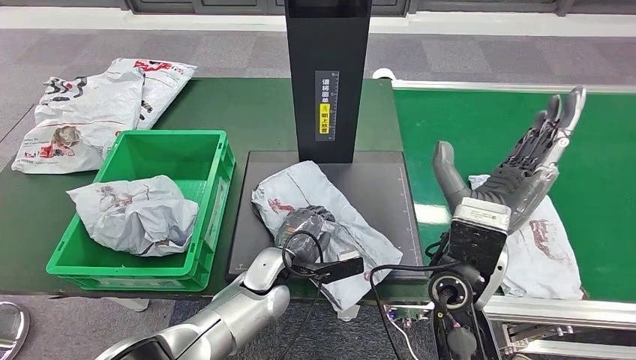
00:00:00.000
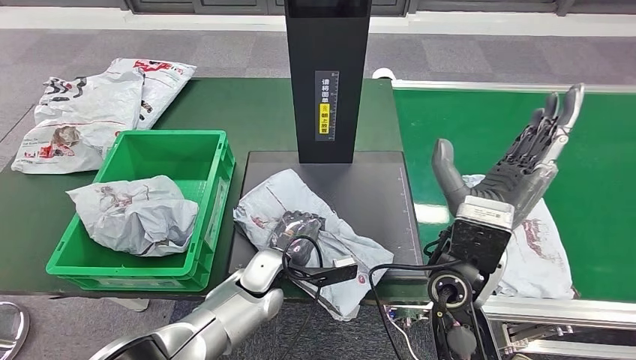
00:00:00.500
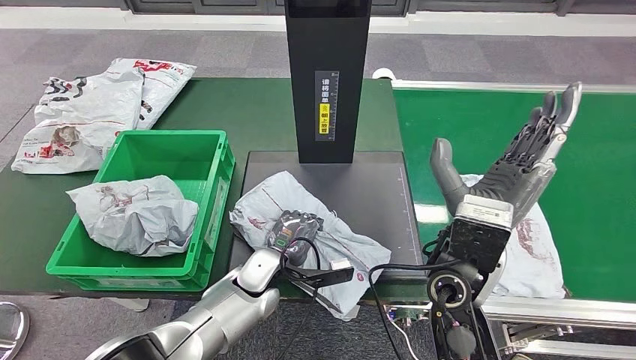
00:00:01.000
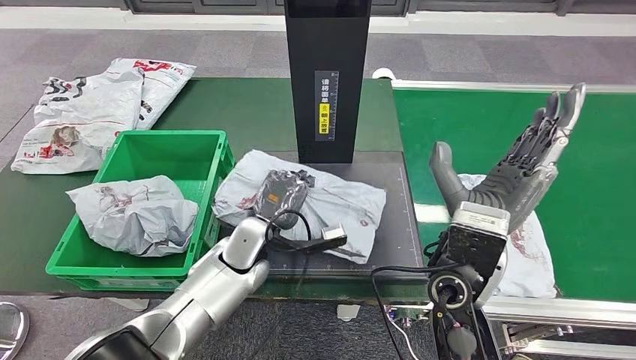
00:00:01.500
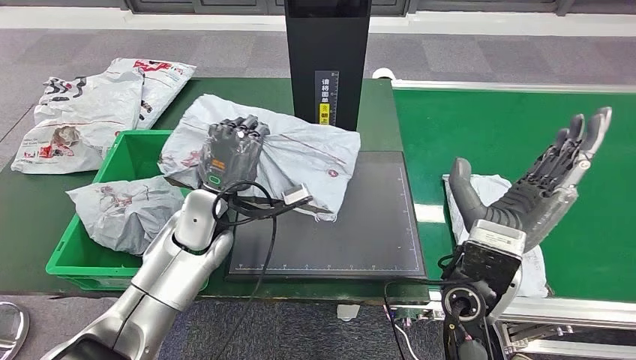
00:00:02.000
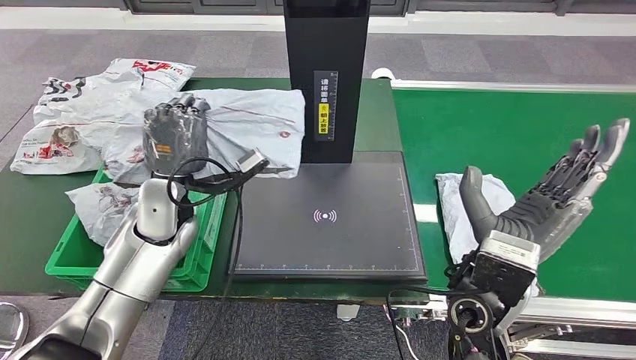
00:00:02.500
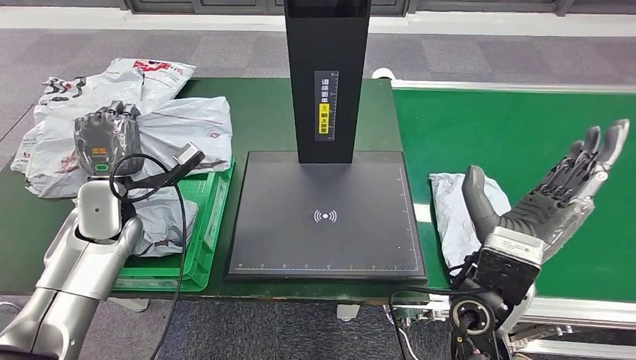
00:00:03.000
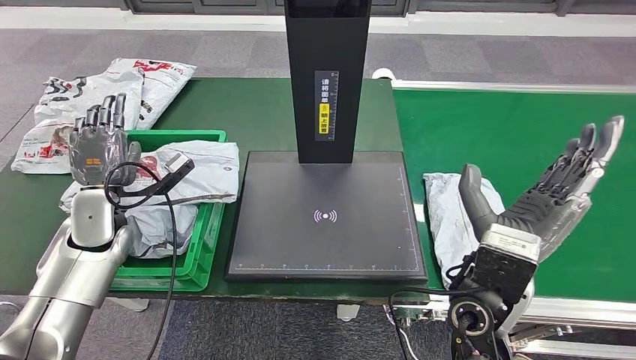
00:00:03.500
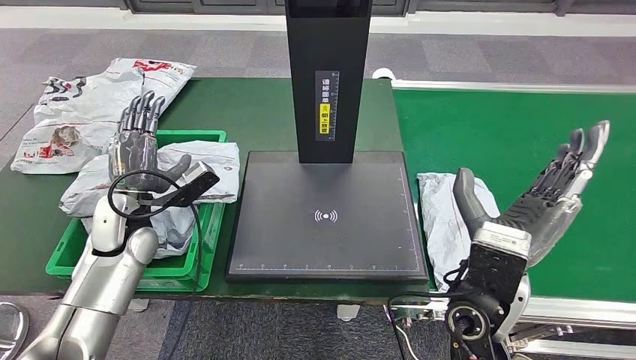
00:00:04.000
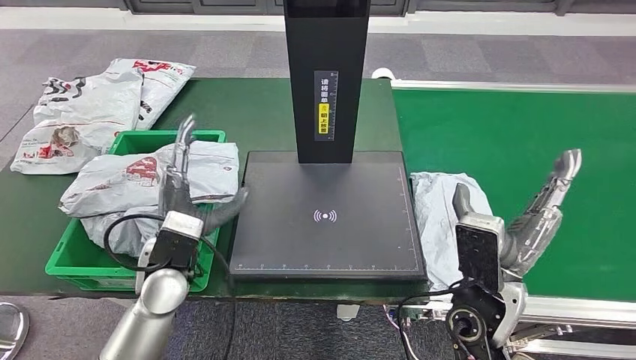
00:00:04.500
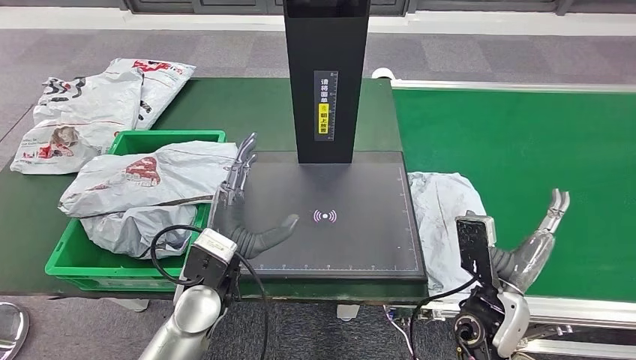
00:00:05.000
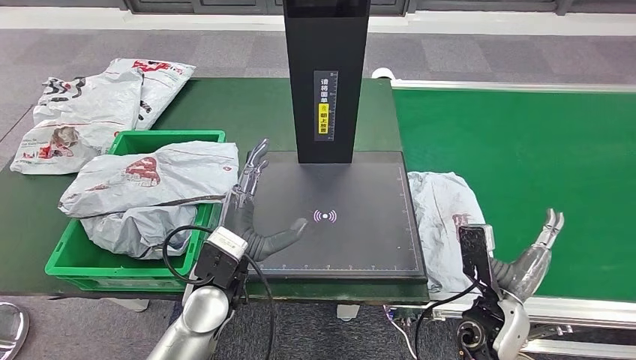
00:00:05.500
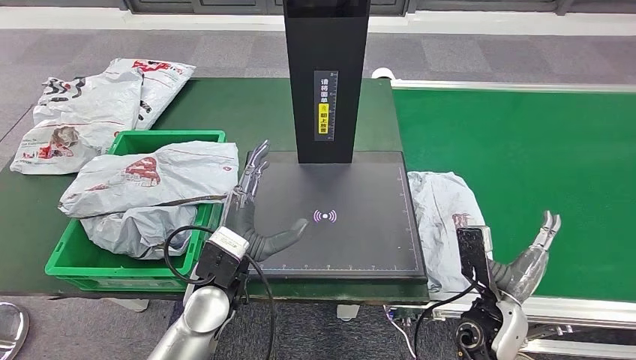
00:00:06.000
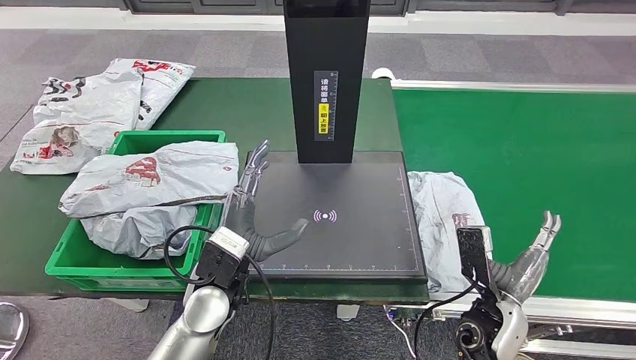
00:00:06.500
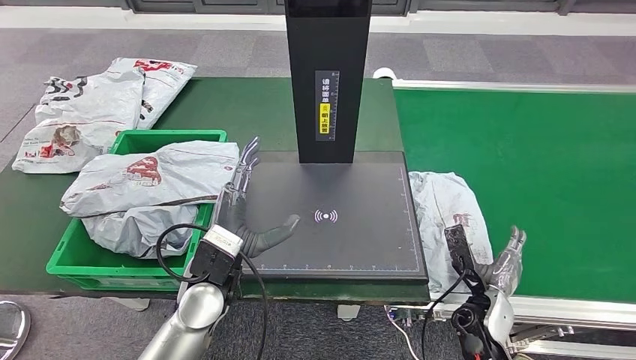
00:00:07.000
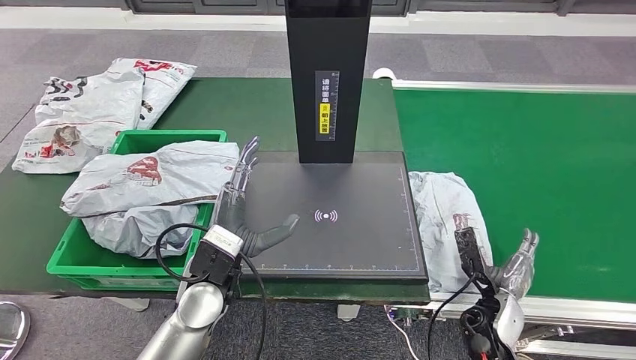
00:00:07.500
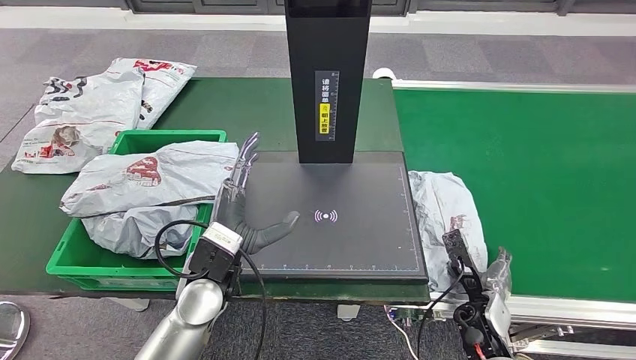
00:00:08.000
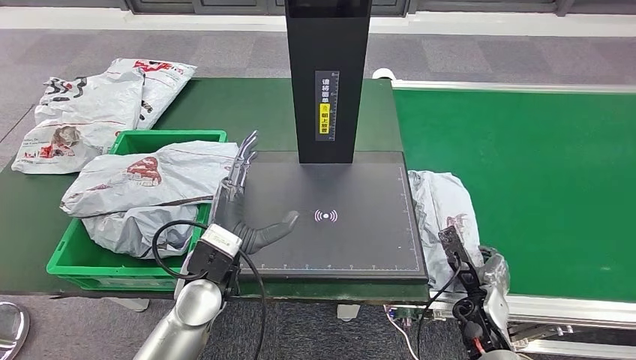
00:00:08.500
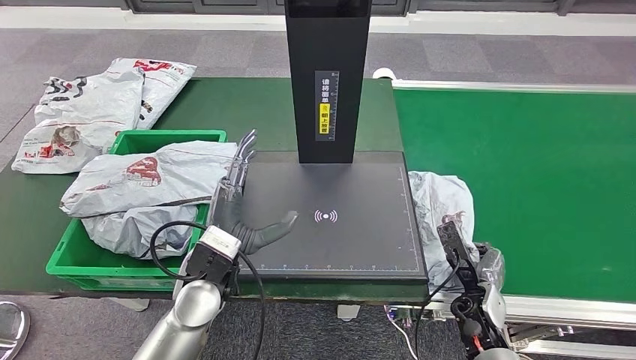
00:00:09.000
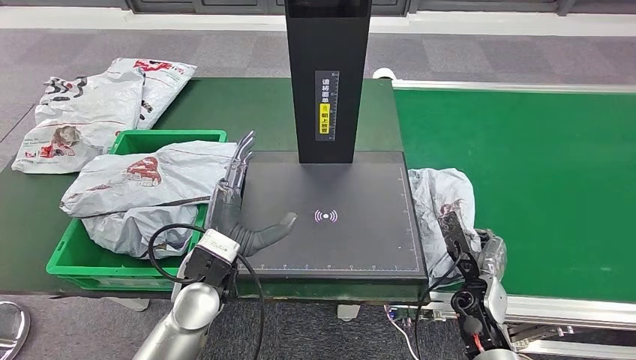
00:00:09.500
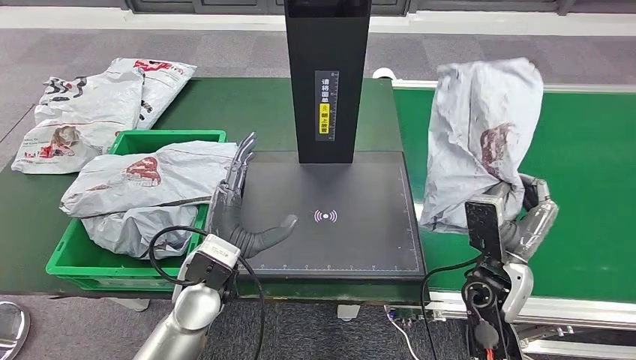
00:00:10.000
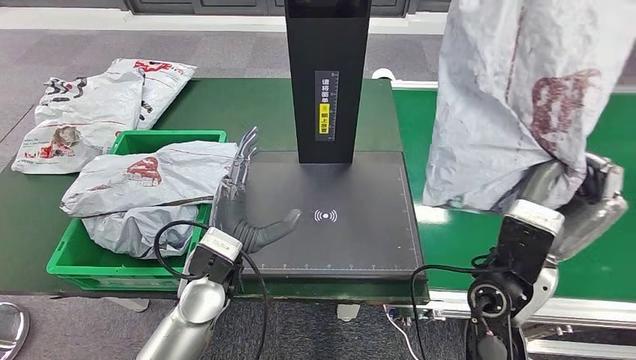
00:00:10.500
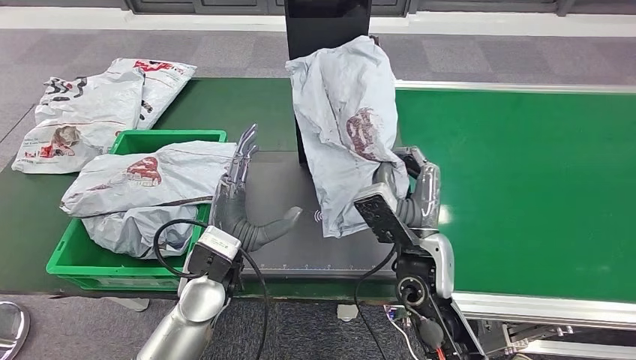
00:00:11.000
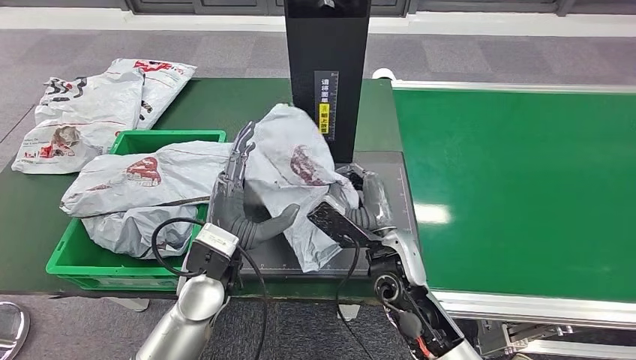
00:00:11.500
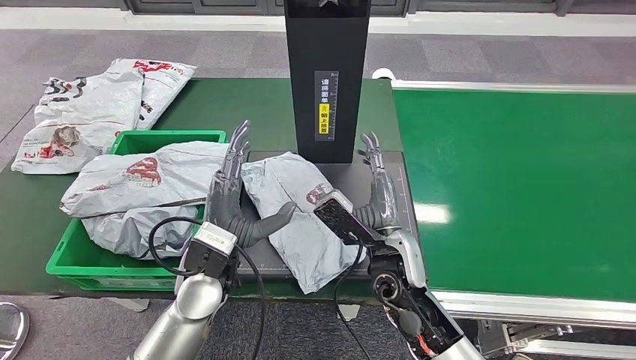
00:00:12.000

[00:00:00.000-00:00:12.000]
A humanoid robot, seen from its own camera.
Step, 00:00:00.000 to 00:00:02.000: Pick up the parcel from the inbound machine.
Step, 00:00:02.500 to 00:00:05.000: Place the parcel into the delivery box.
Step, 00:00:07.000 to 00:00:10.000: Pick up the parcel from the conveyor belt.
00:00:04.000 to 00:00:06.000: The right hand goes approximately 15 cm downward and to the right; the left hand goes approximately 20 cm to the right and backward.
00:00:06.000 to 00:00:08.000: The right hand goes about 10 cm downward.
00:00:08.000 to 00:00:10.000: The right hand is displaced upward by some 10 cm.

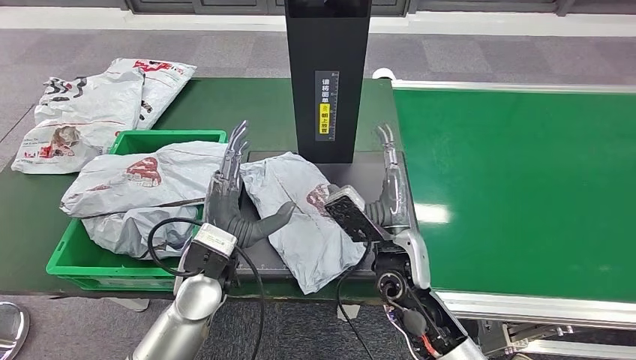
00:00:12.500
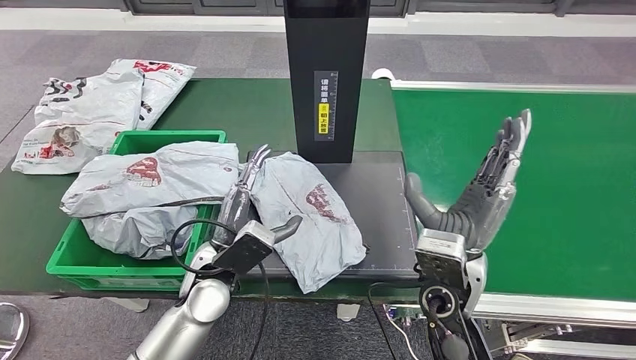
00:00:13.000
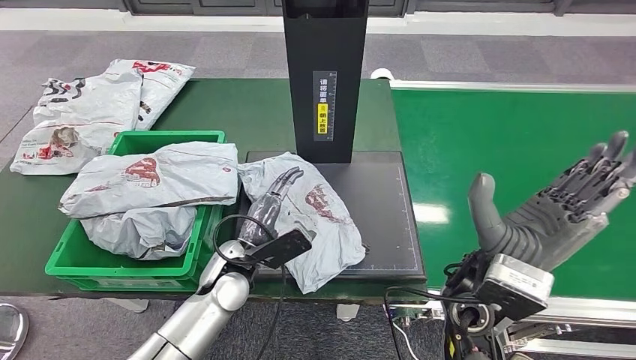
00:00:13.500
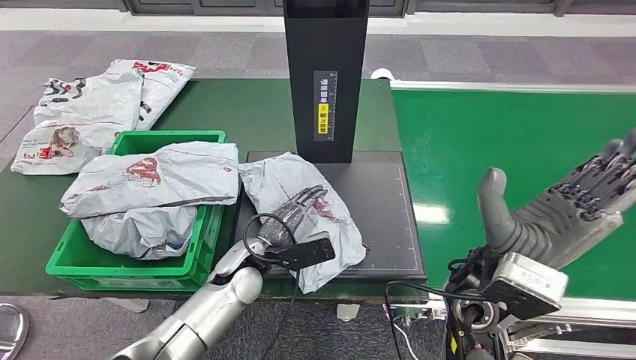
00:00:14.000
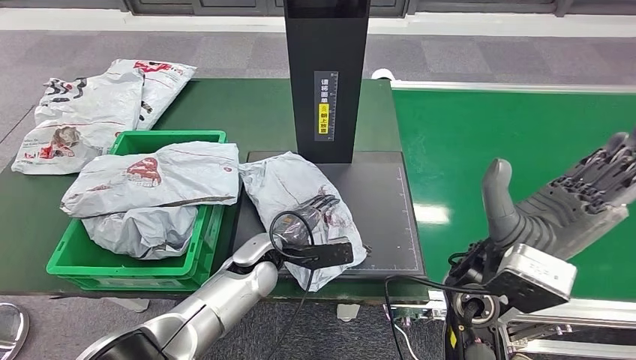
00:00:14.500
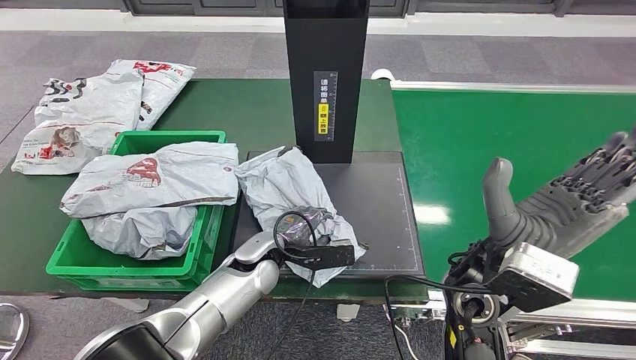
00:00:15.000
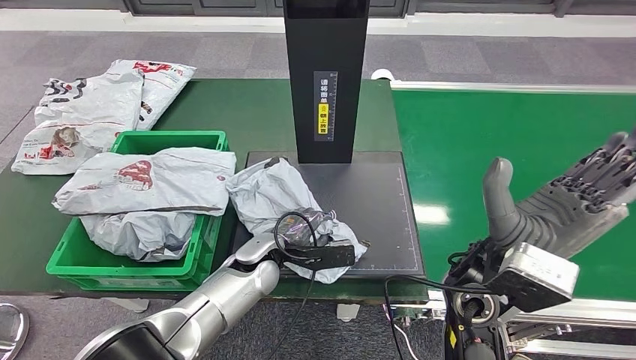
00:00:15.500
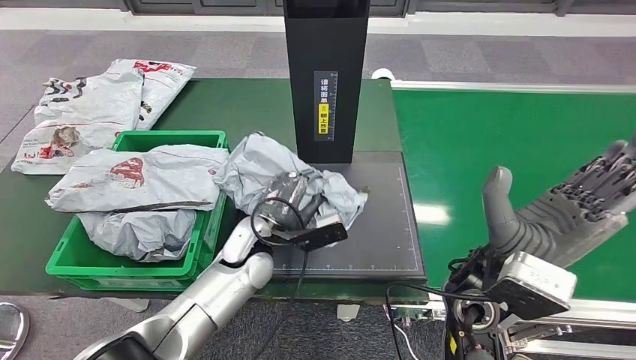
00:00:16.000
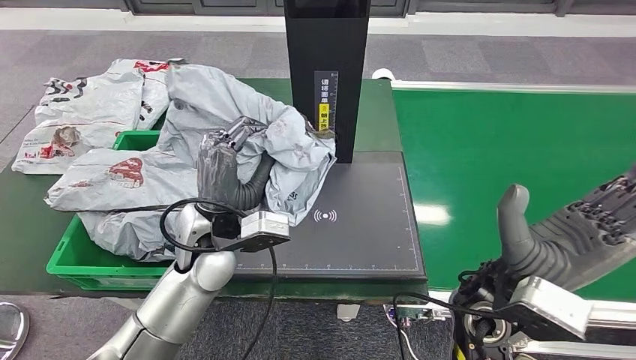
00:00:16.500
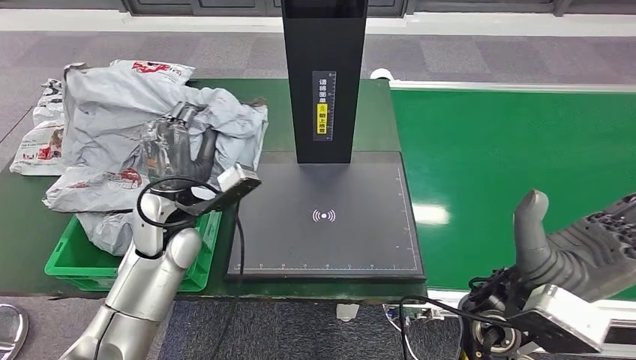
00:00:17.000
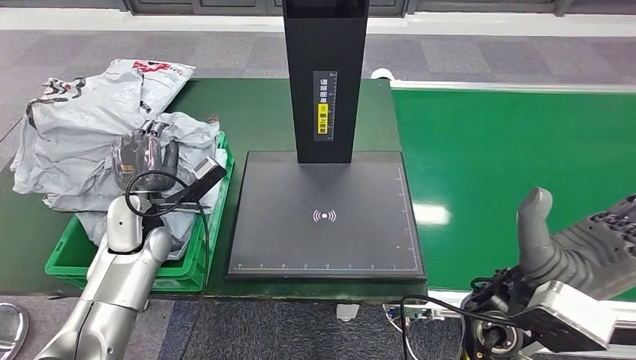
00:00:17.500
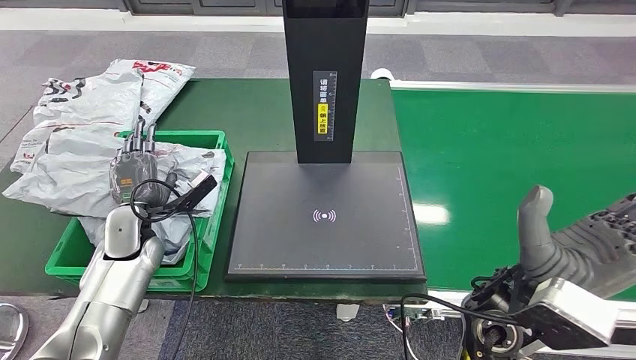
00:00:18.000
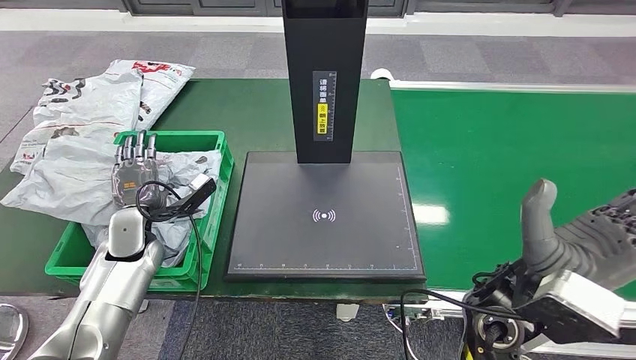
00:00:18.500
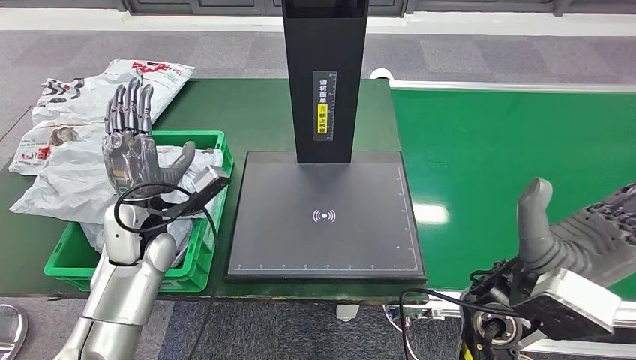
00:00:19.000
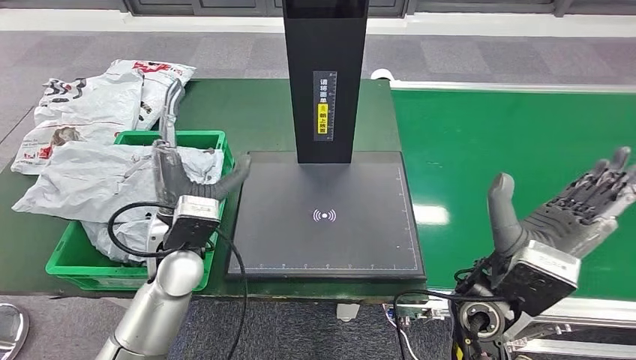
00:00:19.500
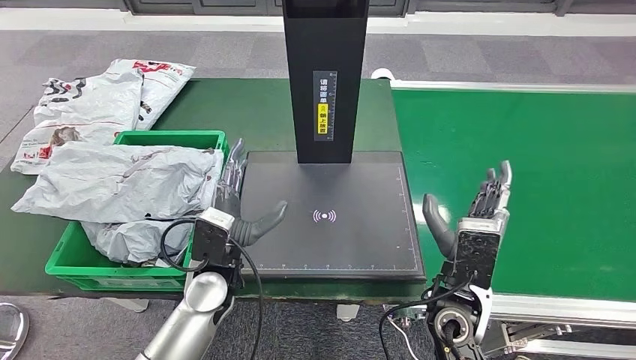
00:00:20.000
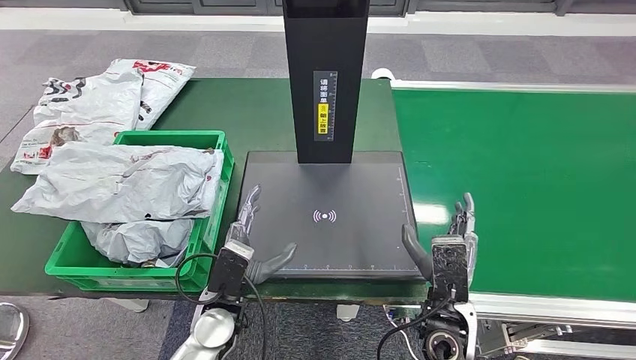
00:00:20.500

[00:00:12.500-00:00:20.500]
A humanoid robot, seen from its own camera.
Step, 00:00:16.500 to 00:00:17.000: Pick up the parcel from the inbound machine.
Step, 00:00:17.500 to 00:00:20.500: Place the parcel into the delivery box.
00:00:18.500 to 00:00:20.500: The left hand is displaced to the right and backward by roughly 20 cm, while the right hand moves downward, some 15 cm.
